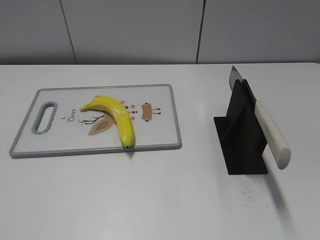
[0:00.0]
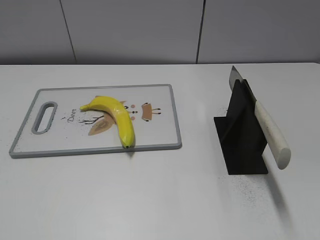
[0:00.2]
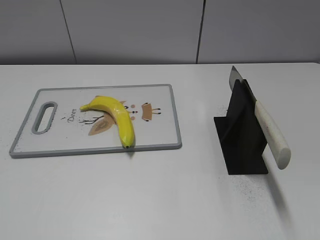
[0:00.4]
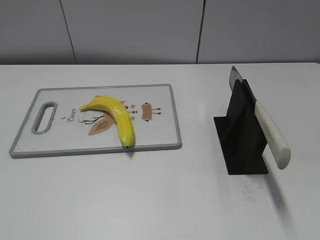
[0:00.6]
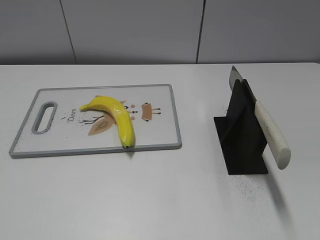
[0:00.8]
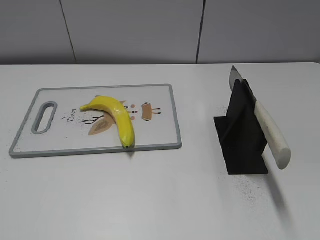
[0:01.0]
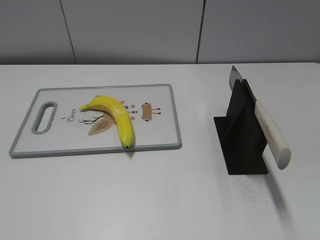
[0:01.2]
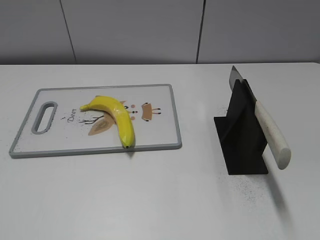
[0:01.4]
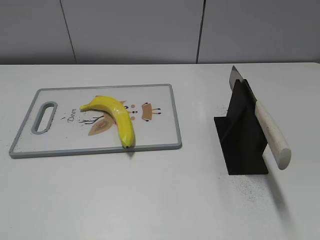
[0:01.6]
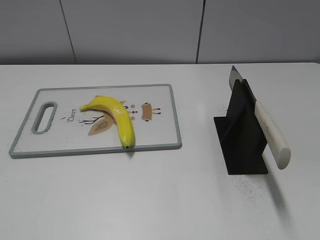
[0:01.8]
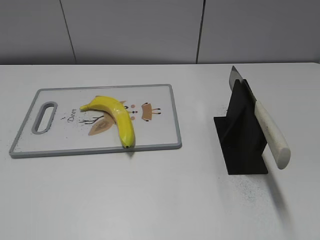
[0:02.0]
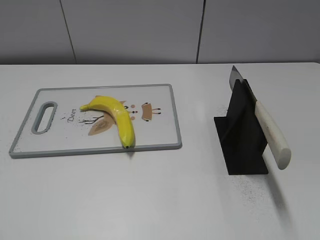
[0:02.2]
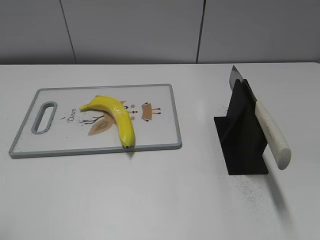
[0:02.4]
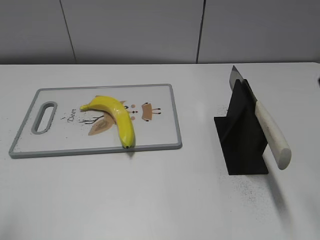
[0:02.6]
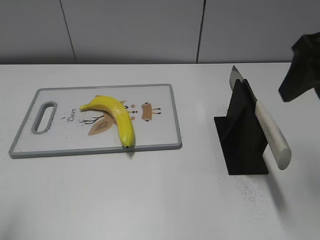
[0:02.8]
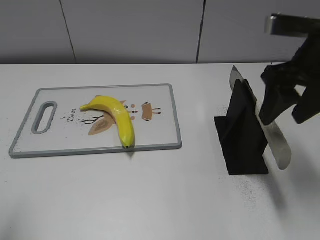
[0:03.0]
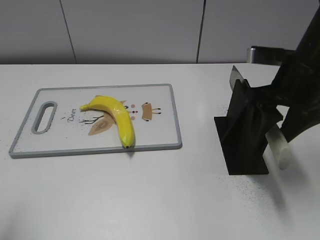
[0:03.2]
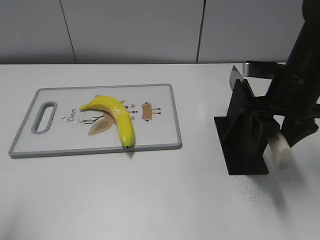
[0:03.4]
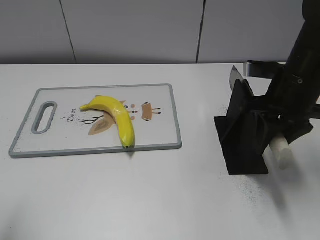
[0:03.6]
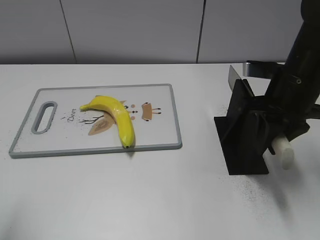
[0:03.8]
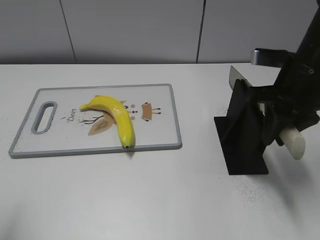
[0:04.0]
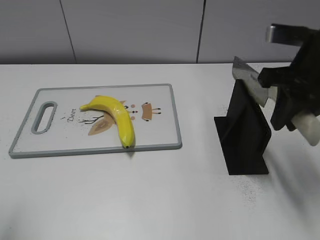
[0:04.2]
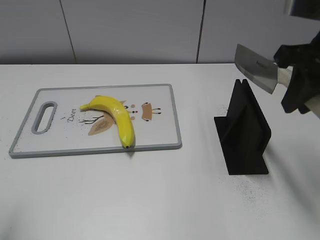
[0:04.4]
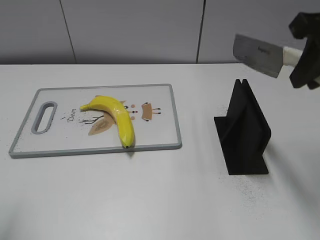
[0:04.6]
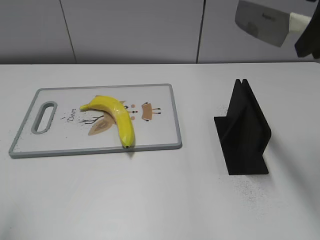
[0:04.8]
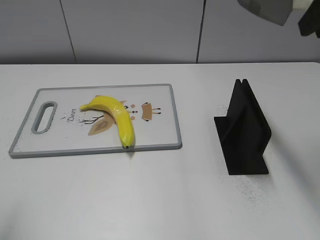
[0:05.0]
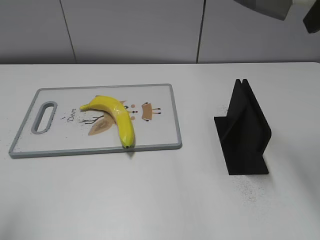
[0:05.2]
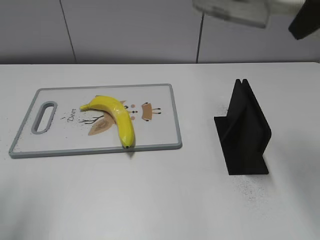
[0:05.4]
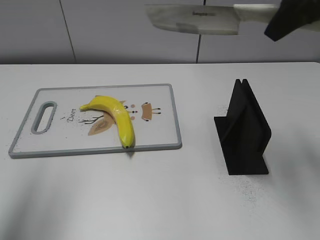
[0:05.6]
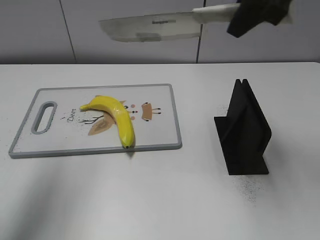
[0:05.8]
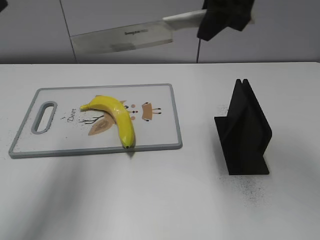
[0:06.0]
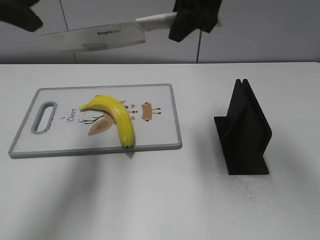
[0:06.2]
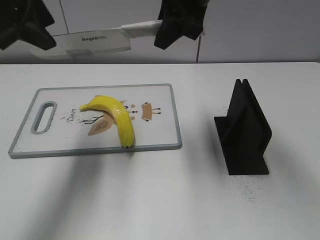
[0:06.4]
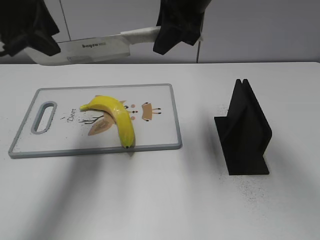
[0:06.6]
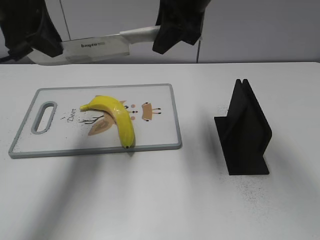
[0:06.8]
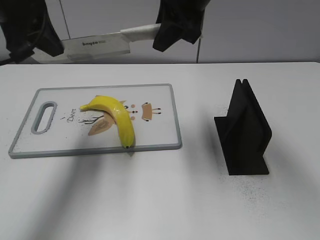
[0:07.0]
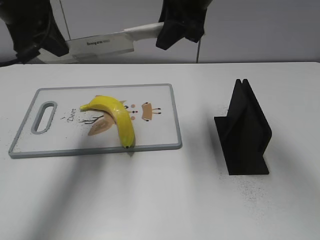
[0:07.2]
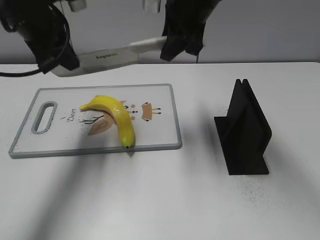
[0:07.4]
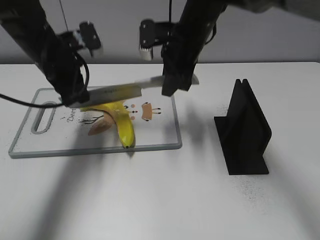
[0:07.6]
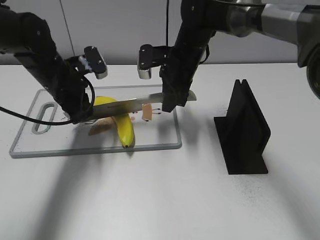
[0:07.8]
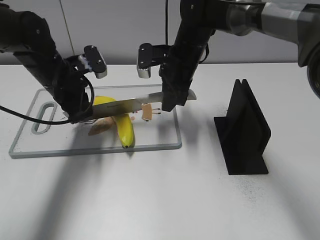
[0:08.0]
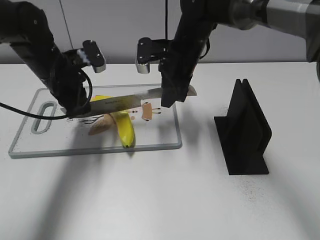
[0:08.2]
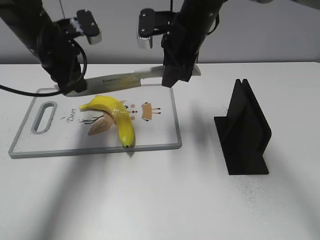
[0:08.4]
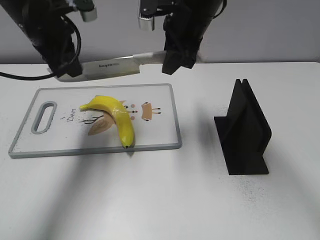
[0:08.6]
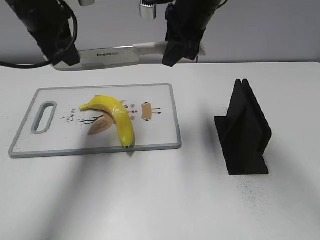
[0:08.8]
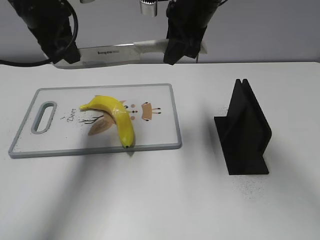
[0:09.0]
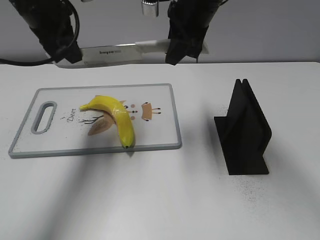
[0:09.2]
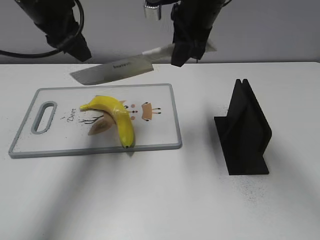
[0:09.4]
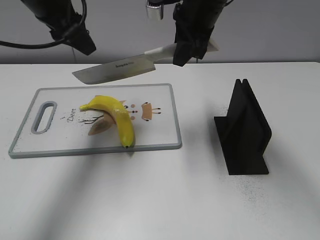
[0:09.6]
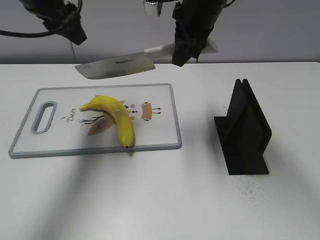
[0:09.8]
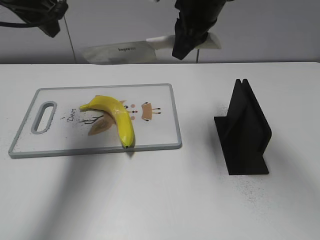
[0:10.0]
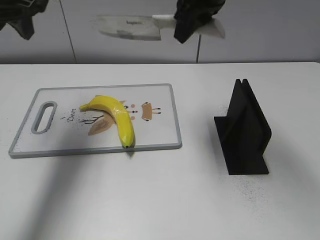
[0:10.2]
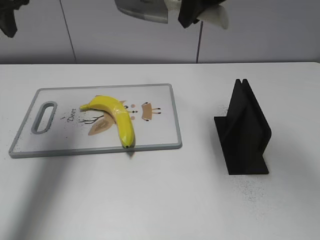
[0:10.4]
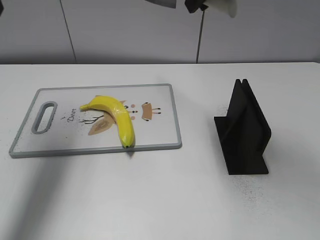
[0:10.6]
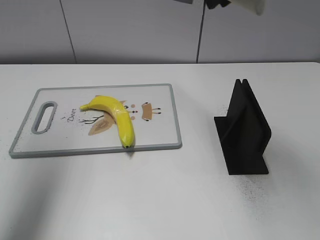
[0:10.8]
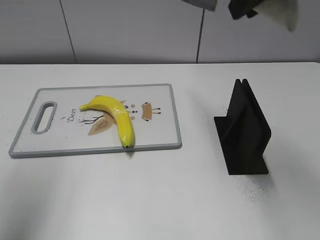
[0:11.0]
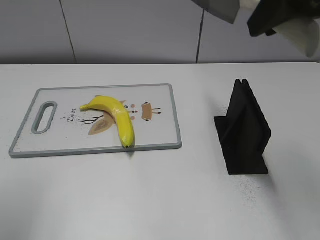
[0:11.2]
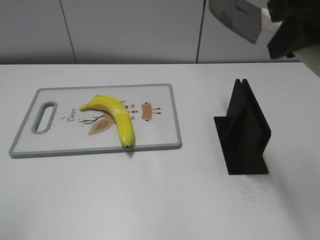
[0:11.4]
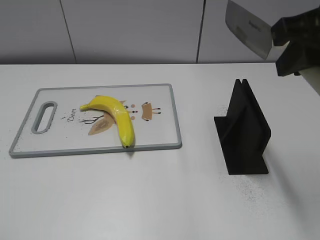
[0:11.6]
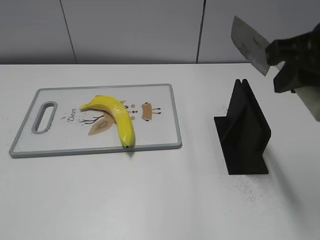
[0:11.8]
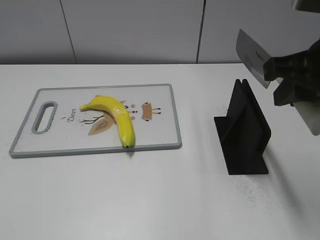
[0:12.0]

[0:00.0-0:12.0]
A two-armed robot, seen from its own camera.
Task of the whole recording: cut plastic banana.
Step, 0:00.0 to 0:04.6: Grab the knife handle with your right hand.
Step, 0:04.8 to 0:08.6: Lift the knife with your right hand.
Step, 0:08.8 to 0:10.0: Cut the banana with your right hand.
Step, 0:10.2 to 0:11.6: Lift the knife with your right hand.
0:01.6 to 0:03.0: The right gripper goes about 30 cm forward.
0:03.0 to 0:04.4: The right gripper travels downward and back again, approximately 10 cm each way, and closes up.
0:04.4 to 0:06.0: The right gripper travels to the left, forward and upward by roughly 15 cm, while the left gripper is displaced forward and upward by roughly 15 cm.
0:06.0 to 0:07.6: The left gripper shifts about 20 cm downward and forward, and closes up; the right gripper travels downward, forward and to the left by approximately 15 cm.
0:07.6 to 0:09.0: The two grippers go approximately 5 cm upward.
0:09.0 to 0:10.4: The left gripper goes some 10 cm to the left, and opens; the right gripper goes some 5 cm upward.
0:10.4 to 0:12.0: The left gripper goes some 35 cm backward, while the right gripper shifts about 20 cm backward and to the right.

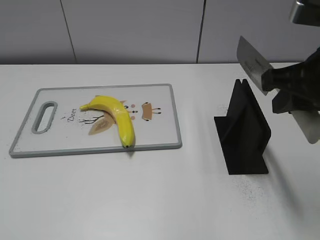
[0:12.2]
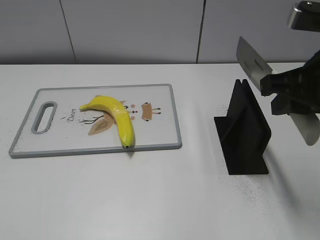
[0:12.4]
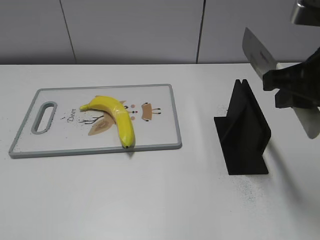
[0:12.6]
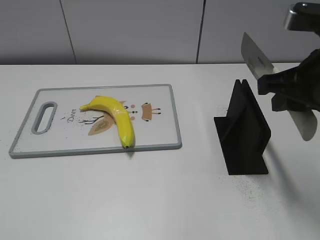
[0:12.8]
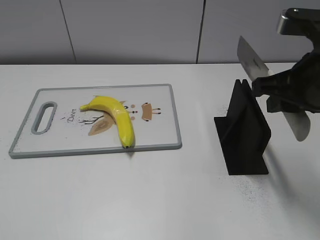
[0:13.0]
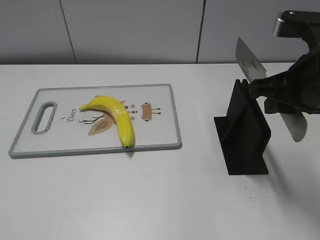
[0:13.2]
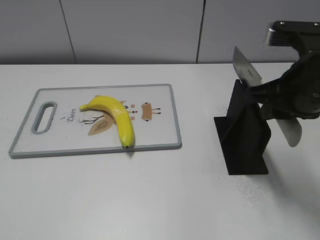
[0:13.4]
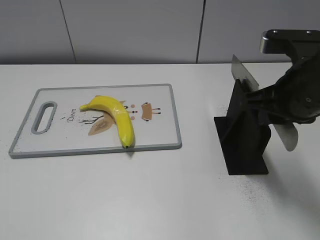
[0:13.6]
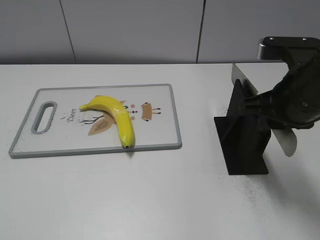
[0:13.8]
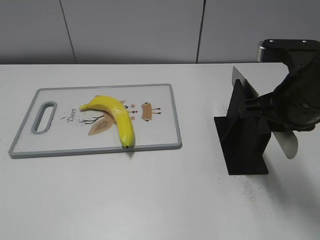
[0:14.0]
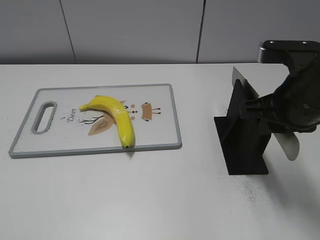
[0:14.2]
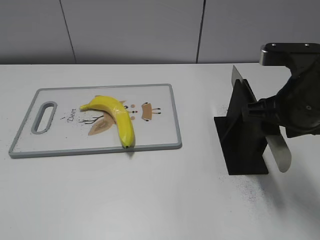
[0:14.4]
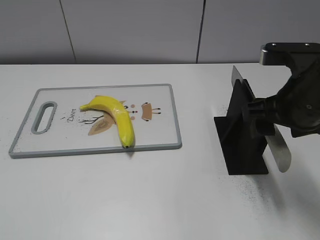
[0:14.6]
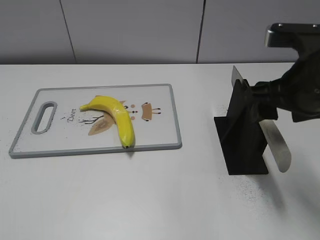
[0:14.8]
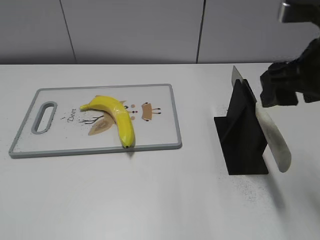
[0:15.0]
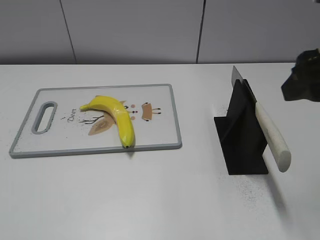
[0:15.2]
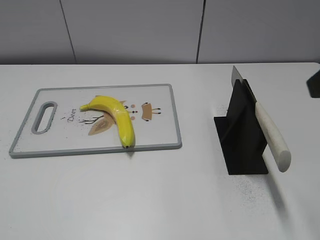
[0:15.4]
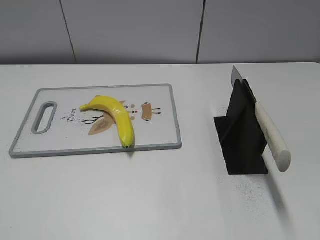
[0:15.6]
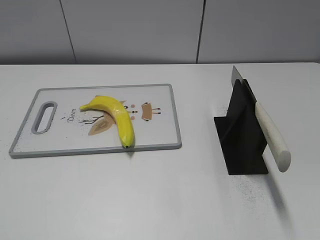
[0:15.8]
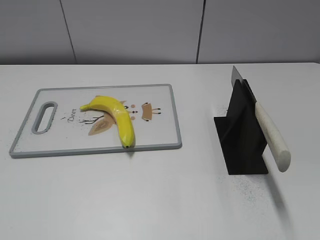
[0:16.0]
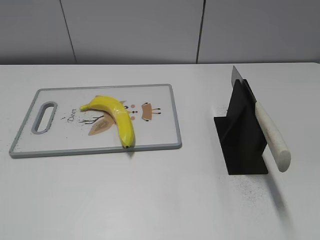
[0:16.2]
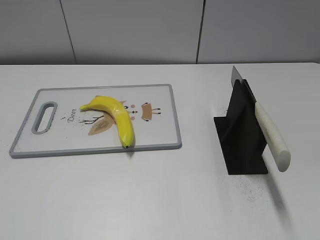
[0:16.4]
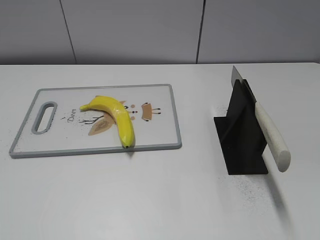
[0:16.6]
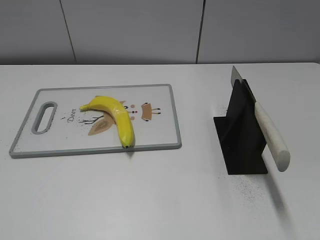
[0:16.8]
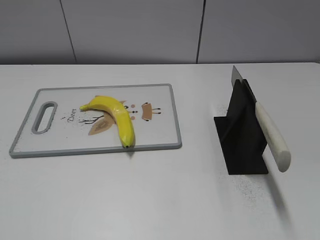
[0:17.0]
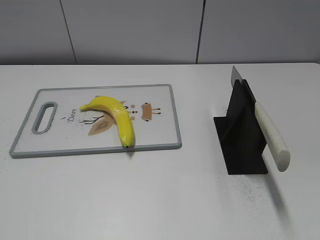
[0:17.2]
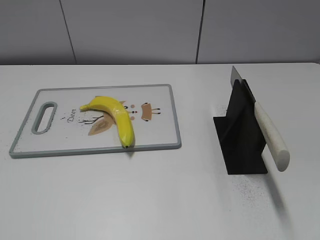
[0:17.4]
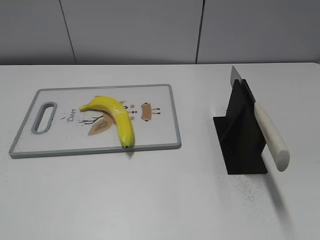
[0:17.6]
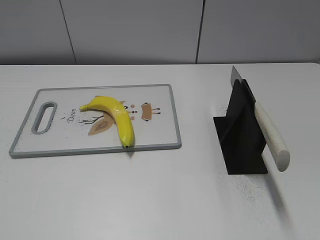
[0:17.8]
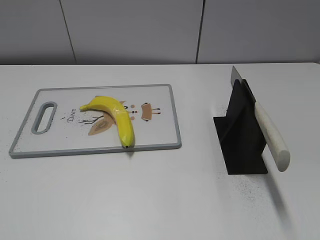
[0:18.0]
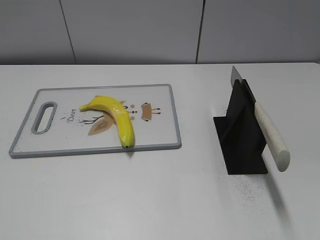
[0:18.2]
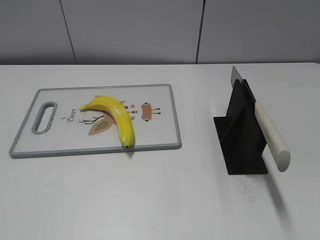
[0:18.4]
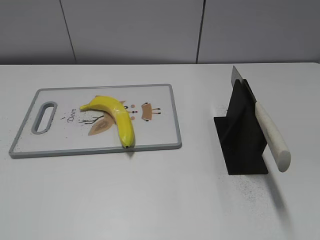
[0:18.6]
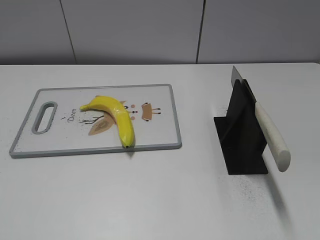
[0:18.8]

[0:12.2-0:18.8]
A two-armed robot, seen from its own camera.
Task of the whole recording: cut plastic banana.
Step, 0:12.2 to 0:18.0: Place the knife on the storage rack with your right hand.
0:12.2 to 0:13.8: The right gripper heads downward, covering about 5 cm.
0:13.8 to 0:15.4: The right gripper moves upward and backward, some 15 cm, and opens its fingers.
0:15.4 to 0:17.2: The right gripper moves backward and to the right, about 20 cm.
